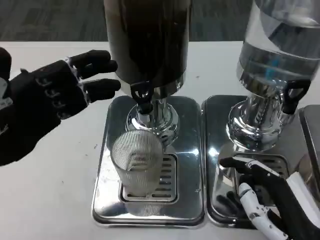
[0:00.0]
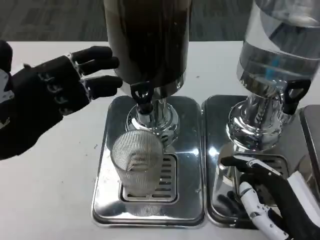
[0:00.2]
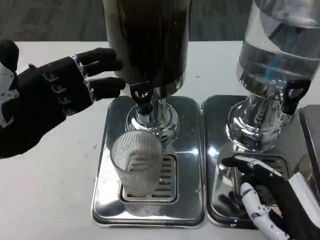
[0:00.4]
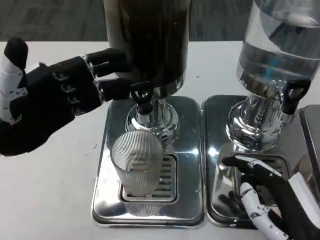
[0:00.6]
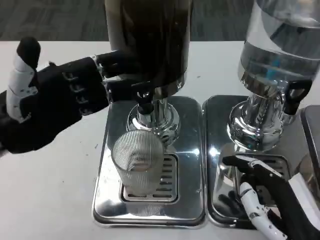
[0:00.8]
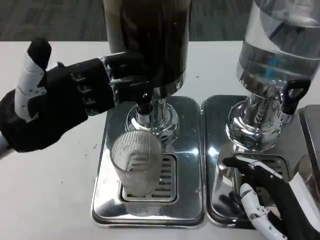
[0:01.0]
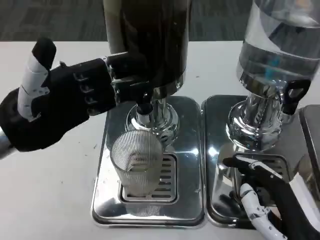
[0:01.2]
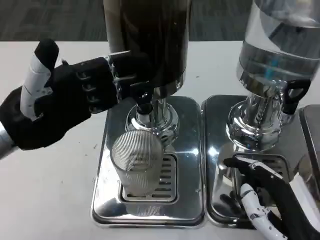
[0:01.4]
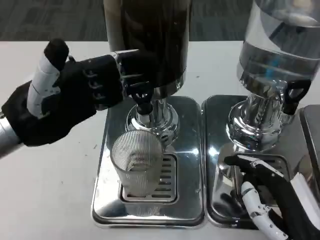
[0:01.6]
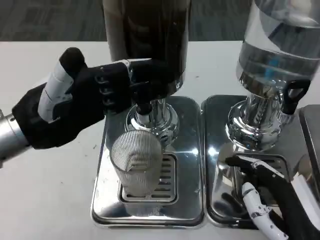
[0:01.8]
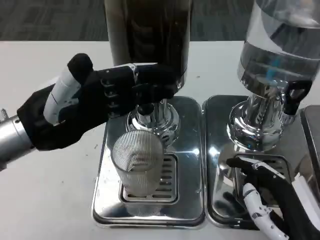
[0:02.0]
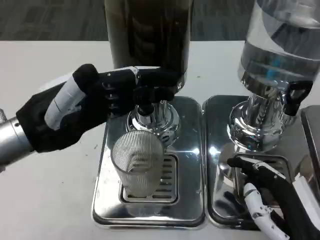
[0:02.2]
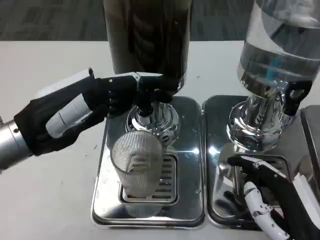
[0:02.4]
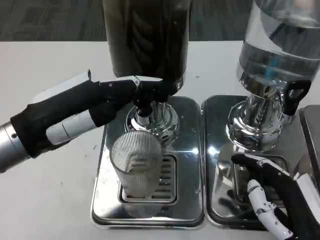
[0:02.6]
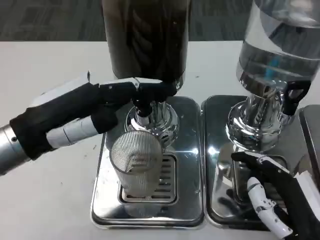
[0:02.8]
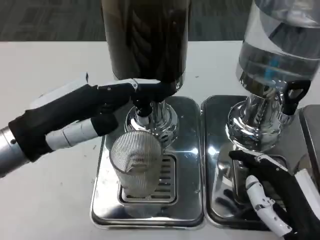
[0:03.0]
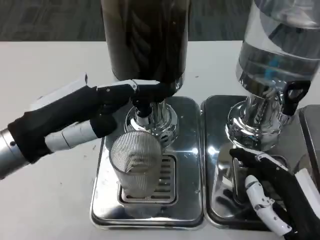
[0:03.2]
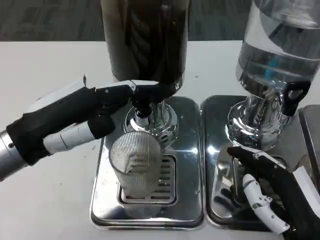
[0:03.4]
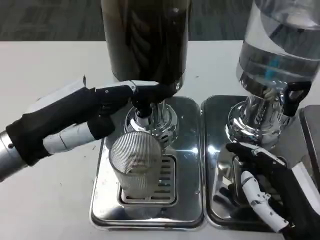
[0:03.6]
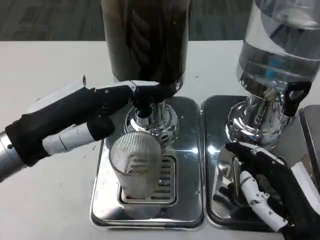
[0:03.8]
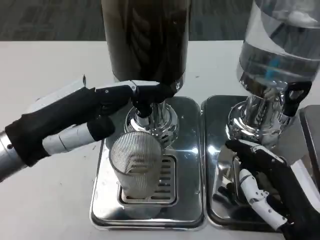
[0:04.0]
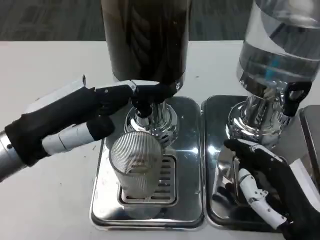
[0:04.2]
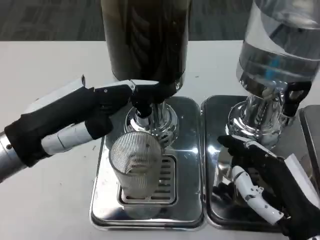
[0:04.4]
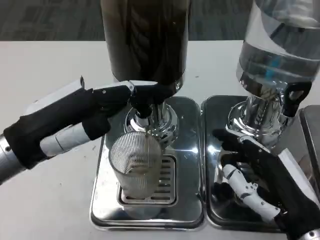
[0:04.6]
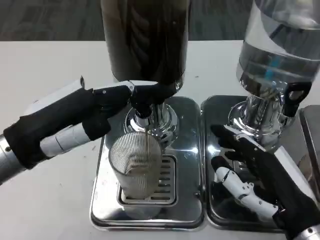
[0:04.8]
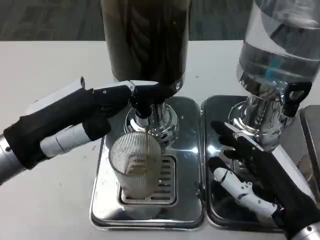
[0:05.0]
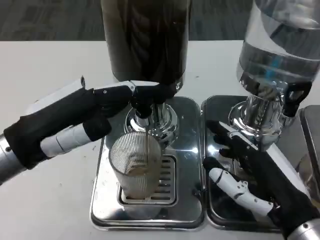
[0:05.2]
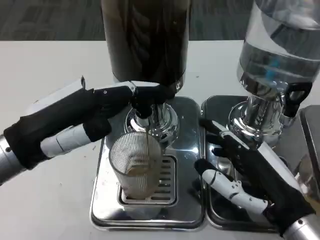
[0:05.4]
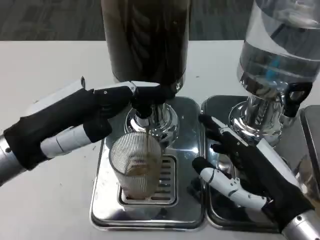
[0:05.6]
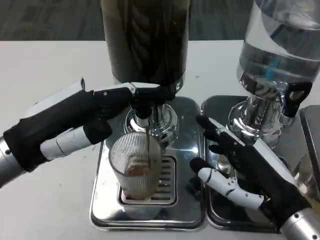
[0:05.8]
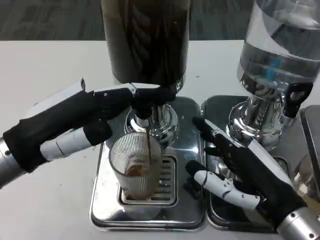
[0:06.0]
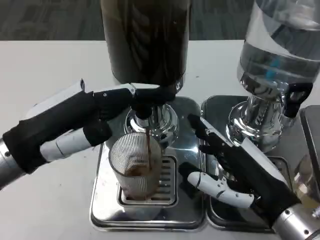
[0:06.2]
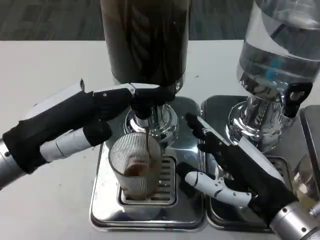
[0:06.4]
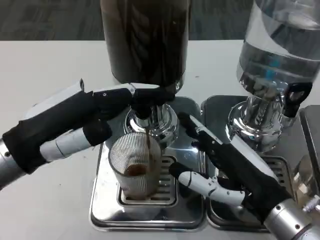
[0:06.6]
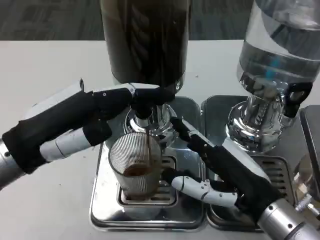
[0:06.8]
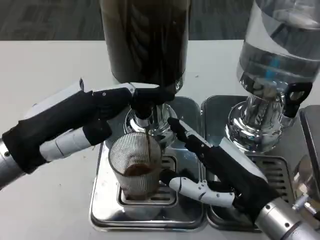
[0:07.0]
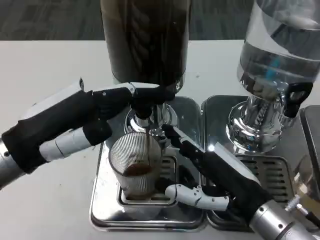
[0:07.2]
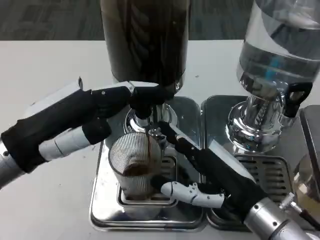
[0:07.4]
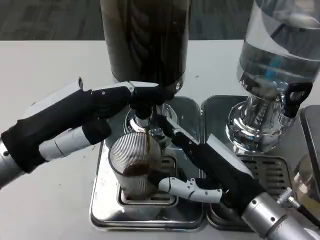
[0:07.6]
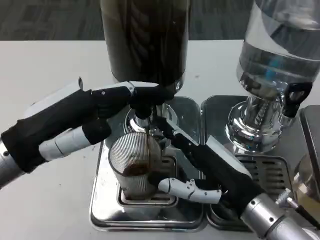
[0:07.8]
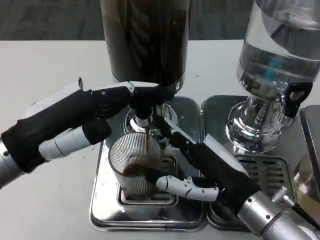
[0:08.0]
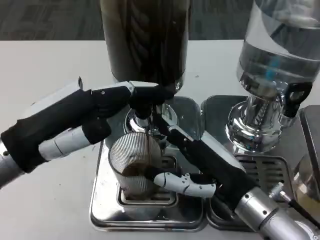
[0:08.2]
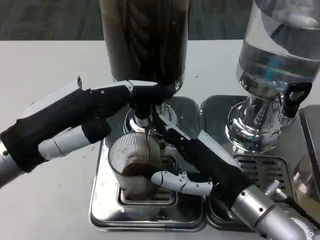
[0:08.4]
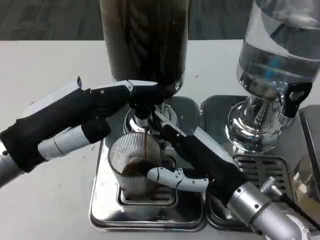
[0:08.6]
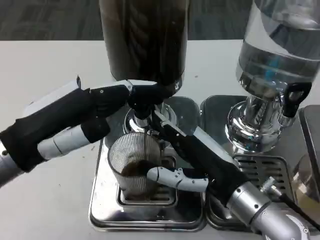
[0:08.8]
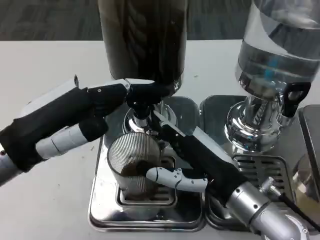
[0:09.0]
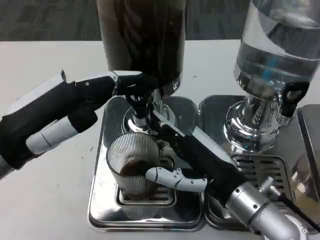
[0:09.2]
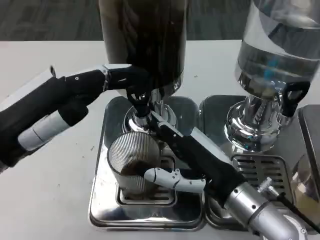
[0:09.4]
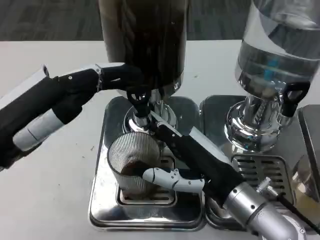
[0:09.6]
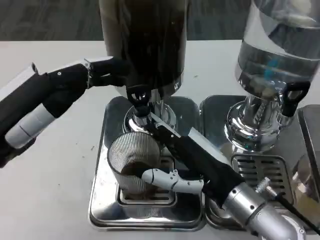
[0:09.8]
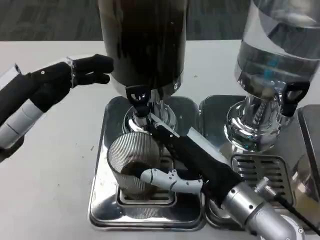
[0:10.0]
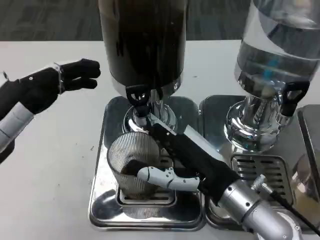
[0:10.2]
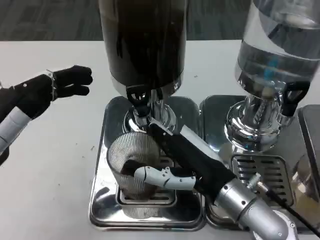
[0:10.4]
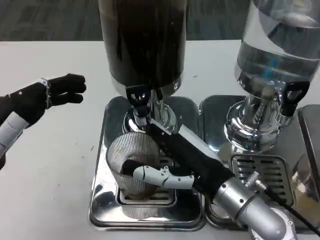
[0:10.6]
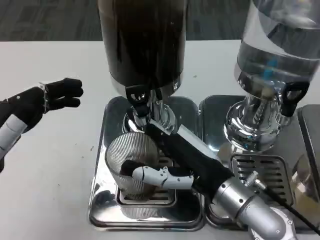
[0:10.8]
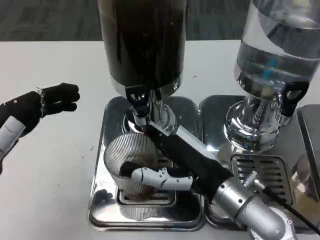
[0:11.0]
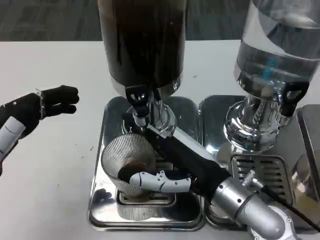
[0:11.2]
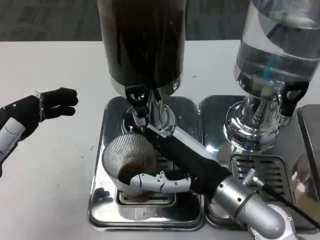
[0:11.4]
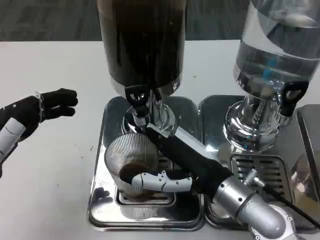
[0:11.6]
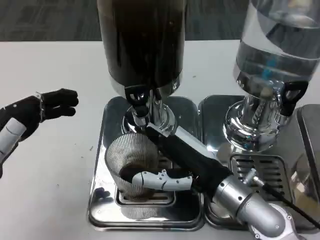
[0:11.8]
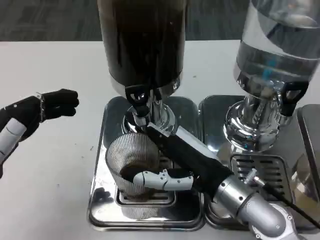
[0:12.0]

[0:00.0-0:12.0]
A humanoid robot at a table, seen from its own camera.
Task of the whole recording: Grasp the cup under the faucet to collect the drink, then remove the cup.
0:00.0 to 0:01.6: The left hand moves some 5 cm.
0:03.0 to 0:04.4: The hands stay close to where they were, moving slightly.
0:04.4 to 0:06.0: There are only small adjustments of the hands.
0:06.0 to 0:07.6: There are only small adjustments of the hands.
0:07.6 to 0:09.0: The hands make only small movements.
0:09.0 to 0:10.4: The left hand shifts by roughly 5 cm.
0:10.4 to 0:12.0: There are only small adjustments of the hands.

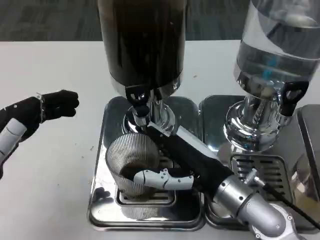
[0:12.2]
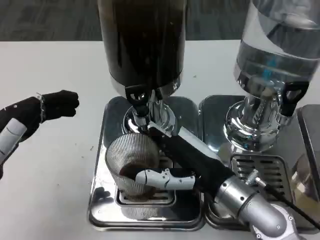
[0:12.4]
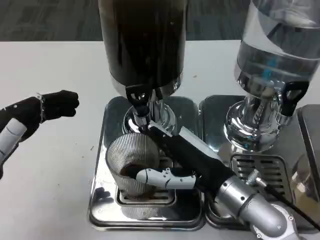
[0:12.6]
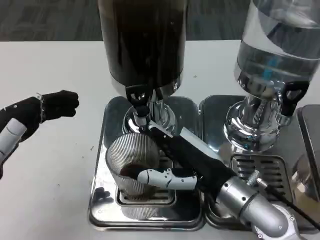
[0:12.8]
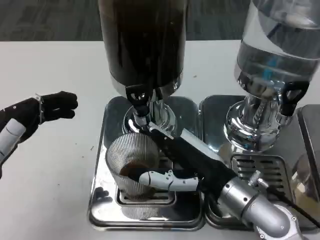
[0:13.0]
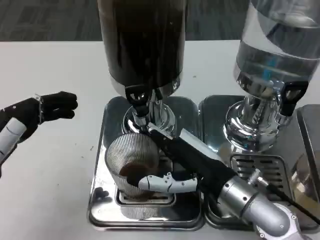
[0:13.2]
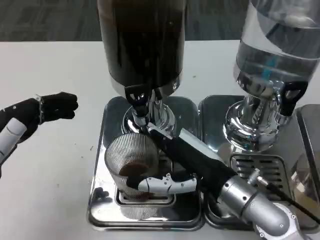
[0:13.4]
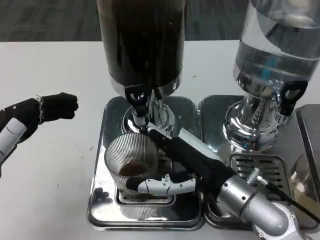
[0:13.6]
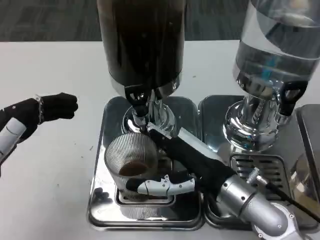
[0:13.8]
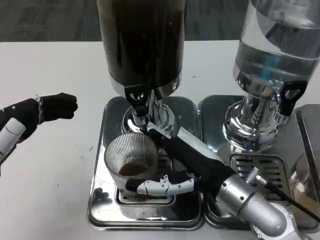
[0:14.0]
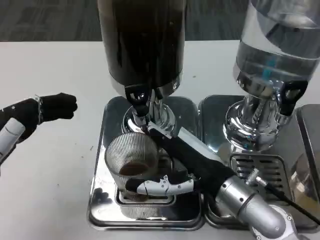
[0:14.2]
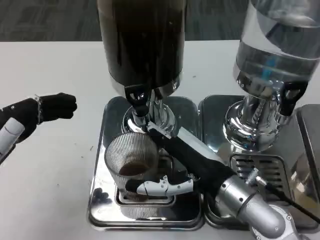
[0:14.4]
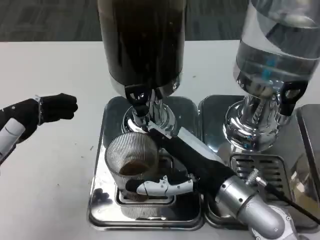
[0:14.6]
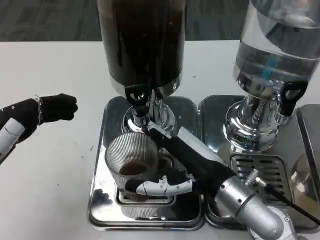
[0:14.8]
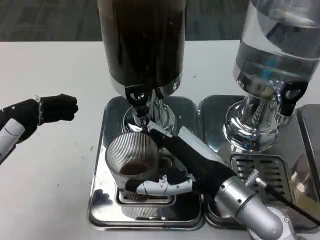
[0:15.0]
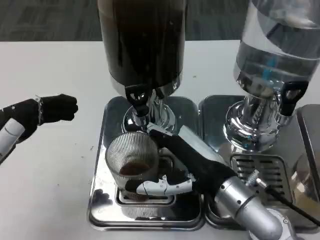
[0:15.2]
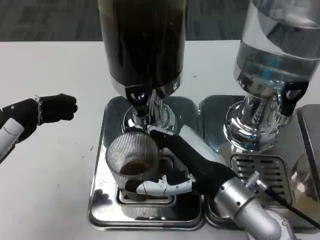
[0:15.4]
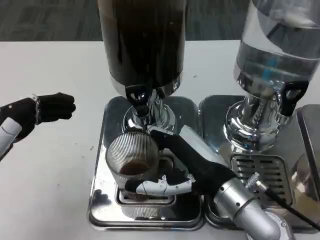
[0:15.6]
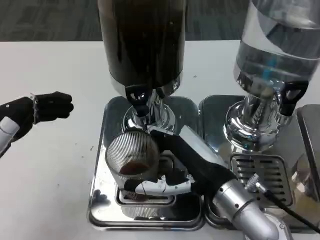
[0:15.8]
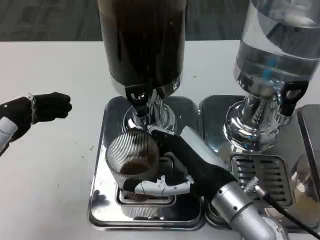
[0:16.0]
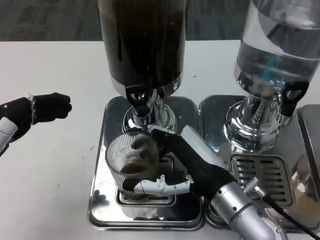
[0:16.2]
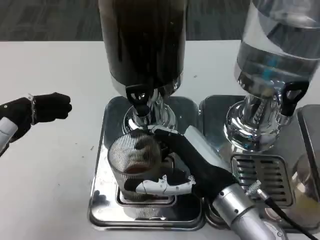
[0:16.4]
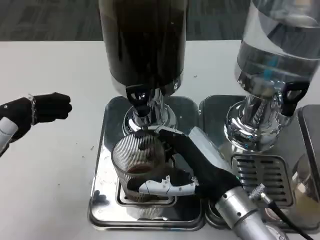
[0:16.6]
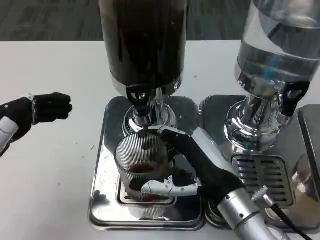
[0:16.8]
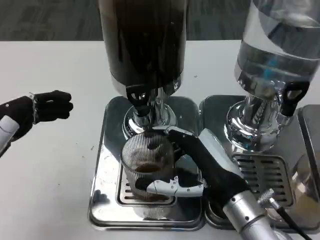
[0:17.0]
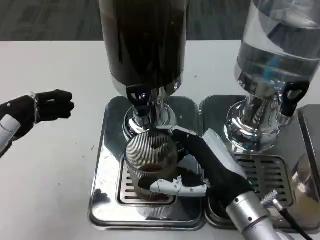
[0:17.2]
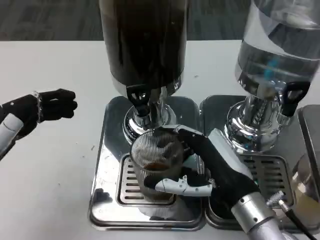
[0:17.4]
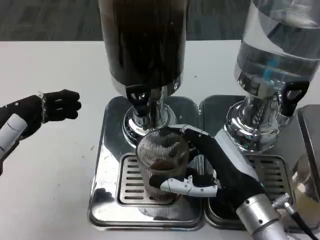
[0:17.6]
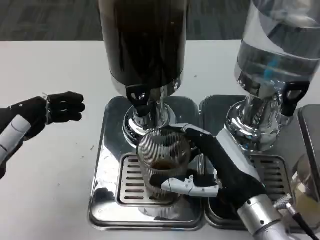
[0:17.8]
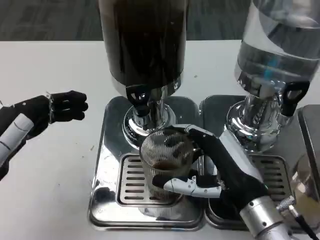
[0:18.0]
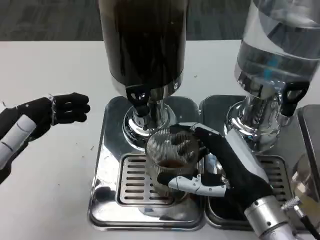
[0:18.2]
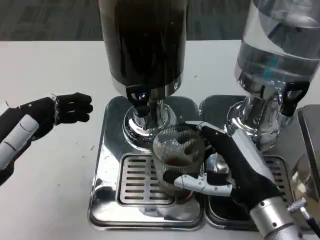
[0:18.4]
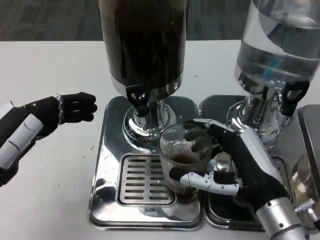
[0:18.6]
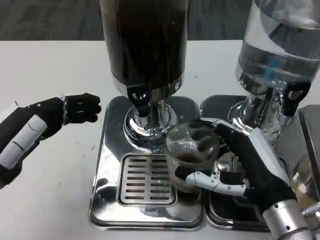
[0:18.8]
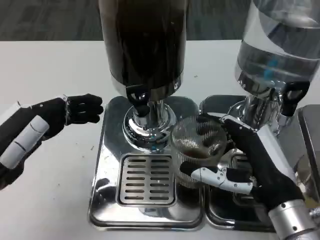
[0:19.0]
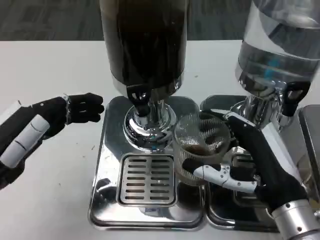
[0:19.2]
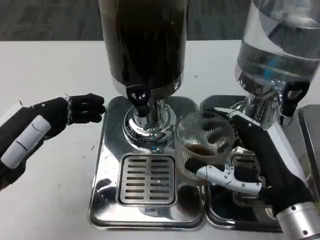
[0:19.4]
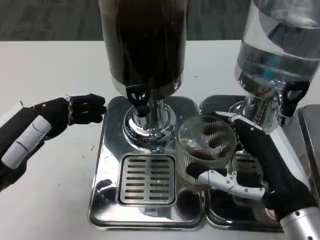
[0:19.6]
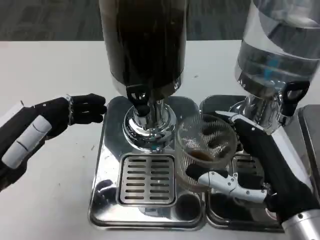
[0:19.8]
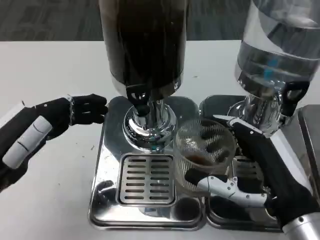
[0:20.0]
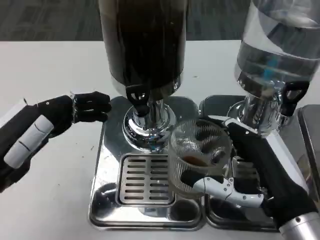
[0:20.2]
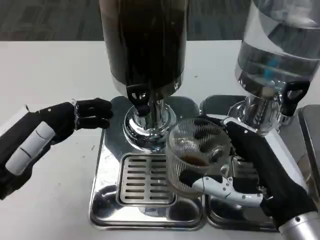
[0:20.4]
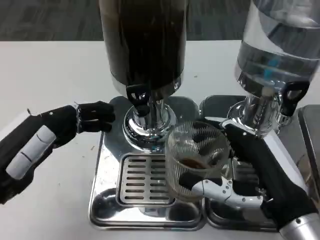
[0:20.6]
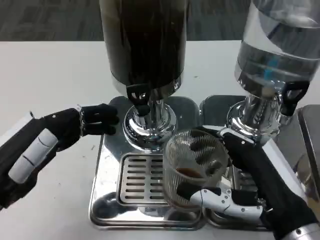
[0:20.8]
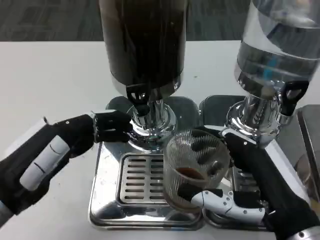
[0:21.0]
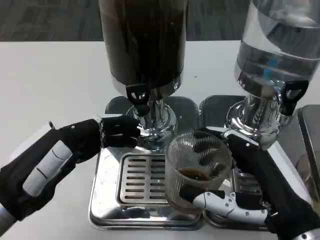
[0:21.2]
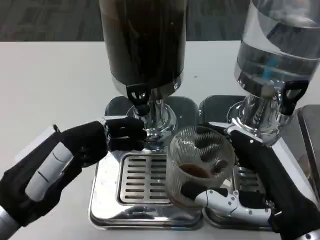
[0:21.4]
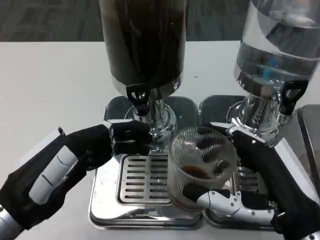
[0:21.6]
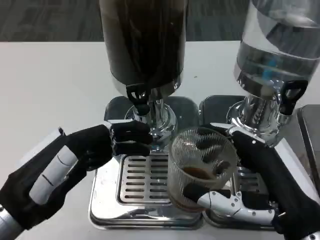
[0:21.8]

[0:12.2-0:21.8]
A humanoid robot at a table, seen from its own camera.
Task of the whole recording: Grasp the cup under the faucet to collect the drink, then remove the cup.
0:12.2 to 0:17.0: The hands make only small movements.
0:18.6 to 0:20.2: The right hand moves some 5 cm.
0:20.2 to 0:21.8: The left hand ends up about 5 cm from where it was.

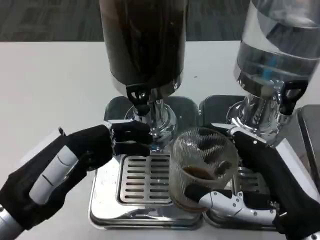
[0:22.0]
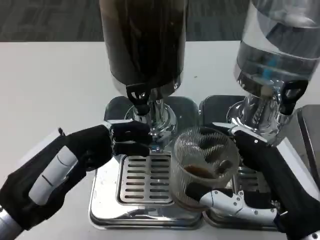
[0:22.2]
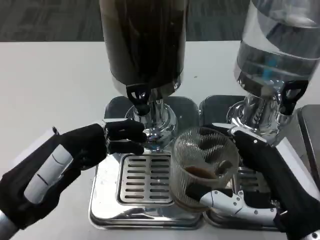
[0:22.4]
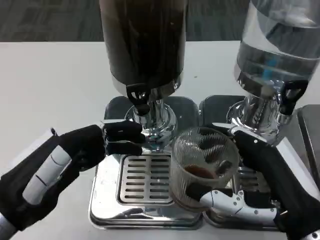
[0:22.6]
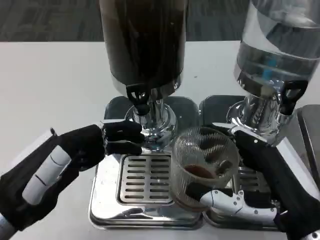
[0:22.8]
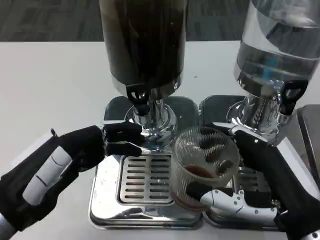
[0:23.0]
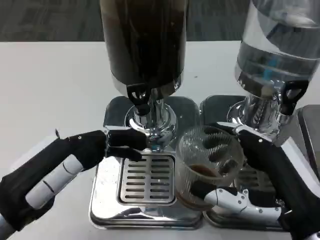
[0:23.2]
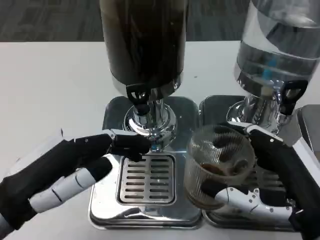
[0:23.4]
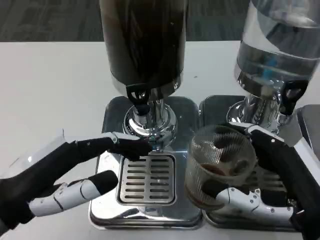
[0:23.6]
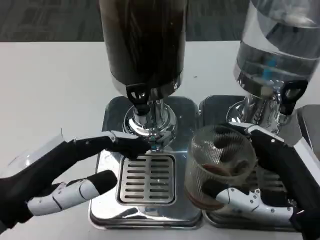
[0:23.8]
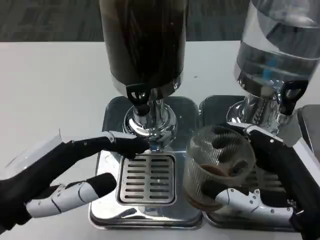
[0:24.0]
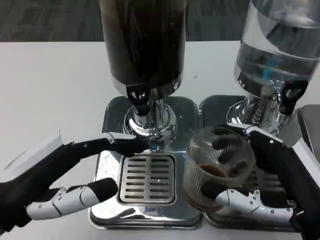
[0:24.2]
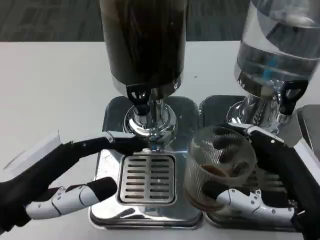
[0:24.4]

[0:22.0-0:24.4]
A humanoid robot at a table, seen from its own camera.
Task of the whole recording: Grasp the cup under the faucet to collect the drink, then remove the cup.
0:22.0 to 0:23.2: The hands make only small movements.
